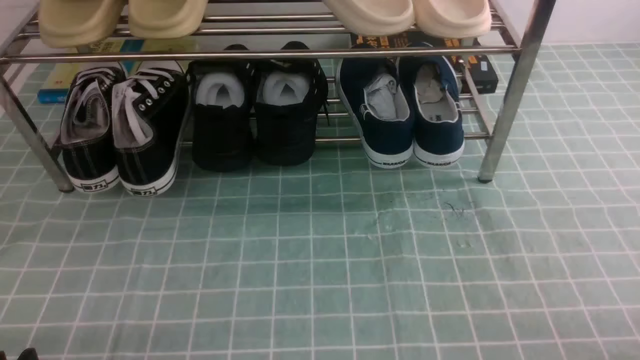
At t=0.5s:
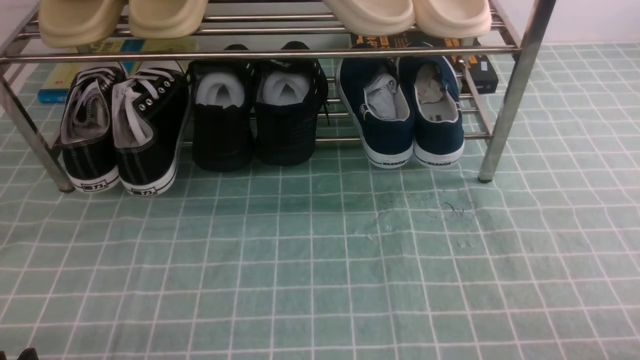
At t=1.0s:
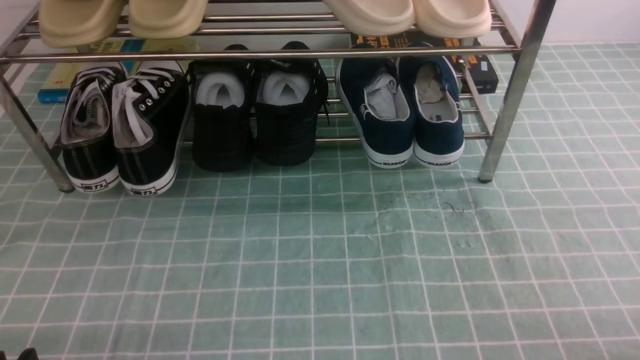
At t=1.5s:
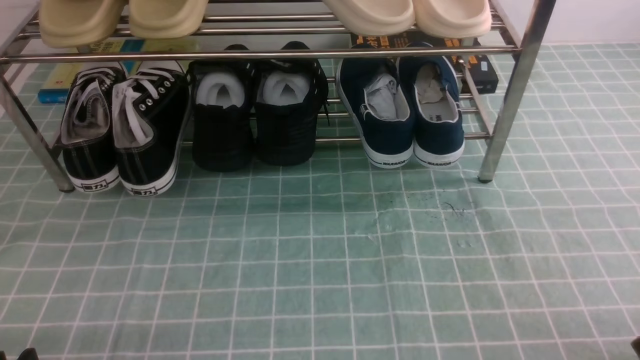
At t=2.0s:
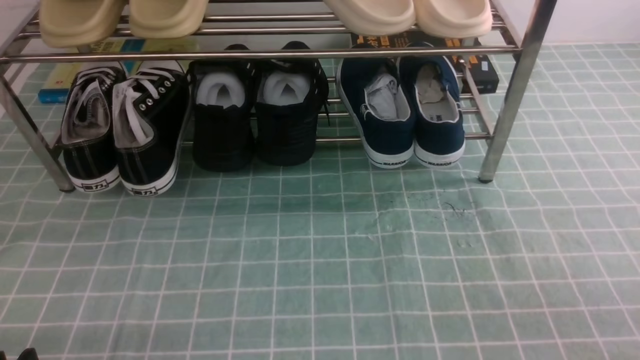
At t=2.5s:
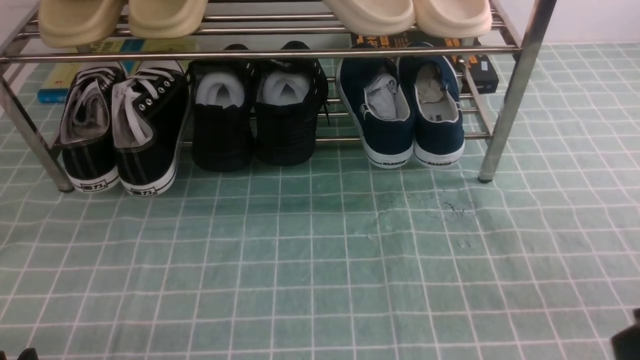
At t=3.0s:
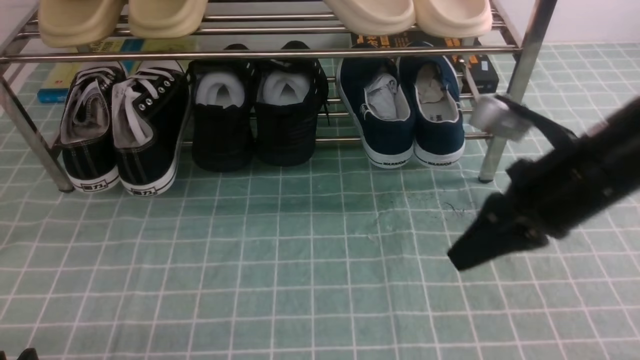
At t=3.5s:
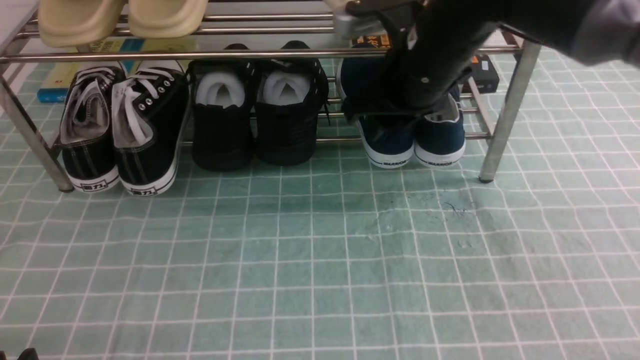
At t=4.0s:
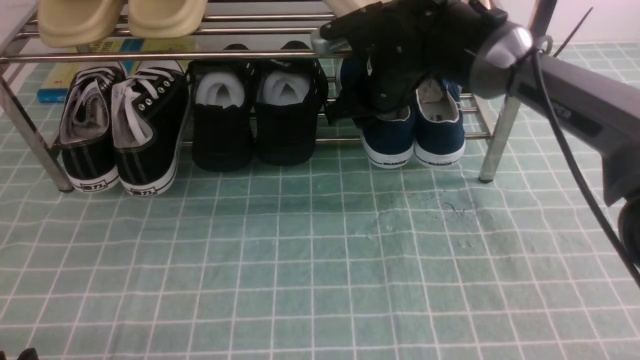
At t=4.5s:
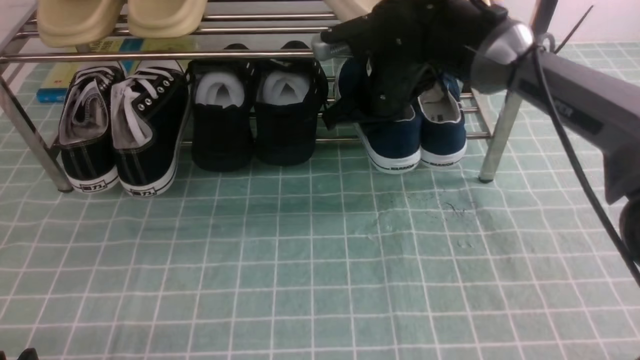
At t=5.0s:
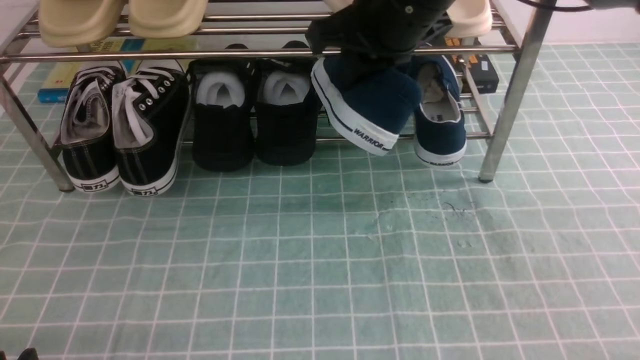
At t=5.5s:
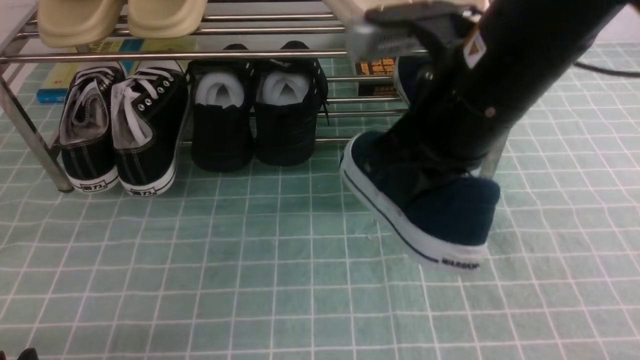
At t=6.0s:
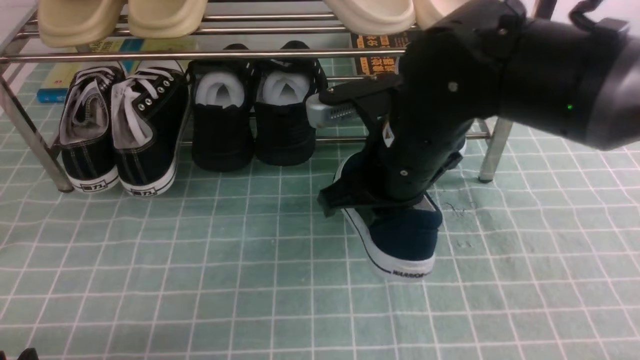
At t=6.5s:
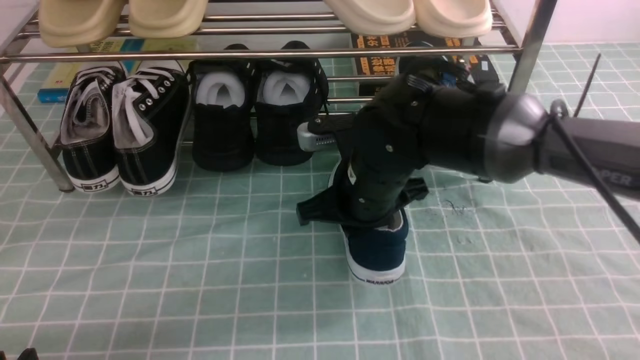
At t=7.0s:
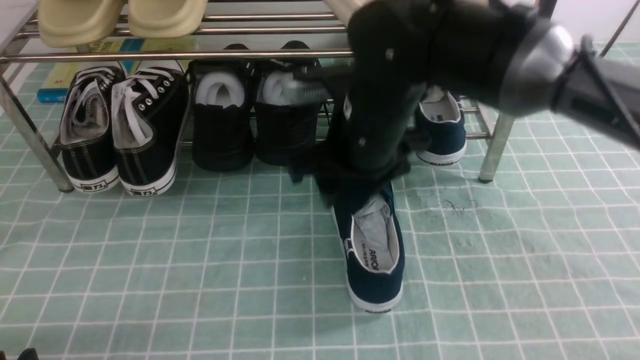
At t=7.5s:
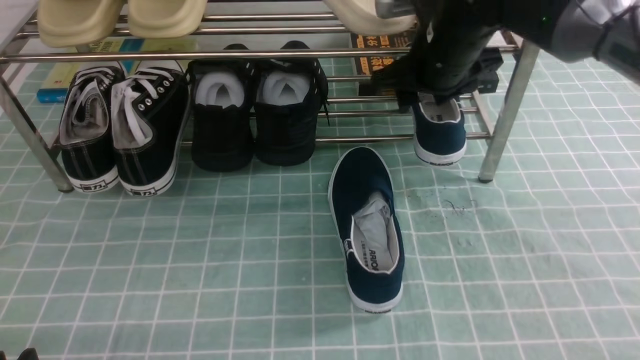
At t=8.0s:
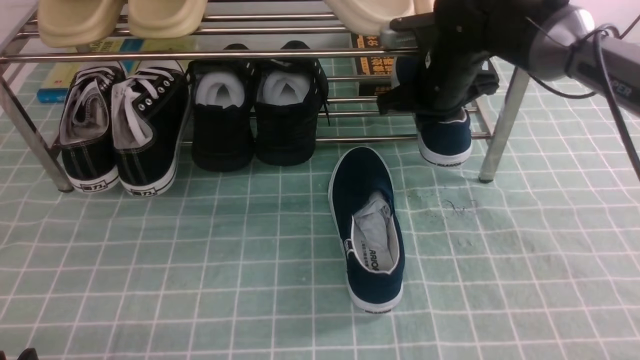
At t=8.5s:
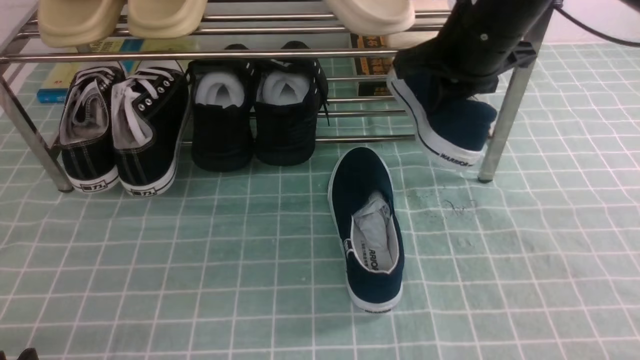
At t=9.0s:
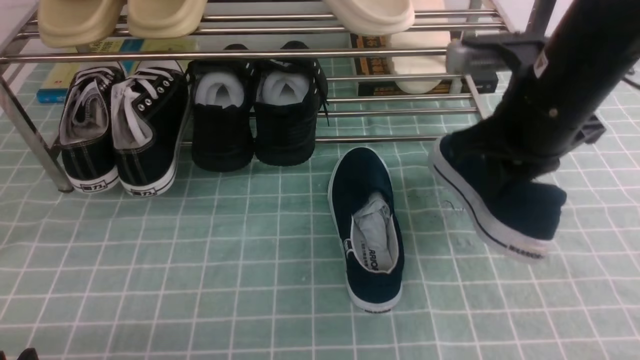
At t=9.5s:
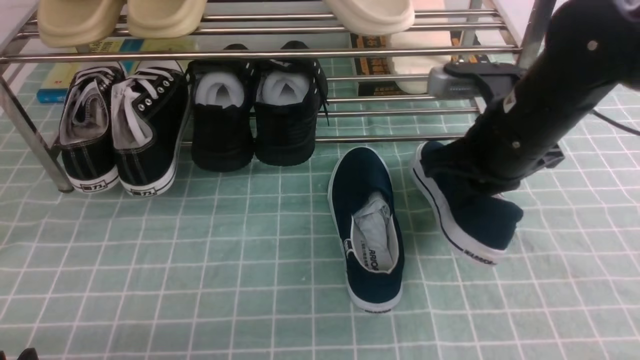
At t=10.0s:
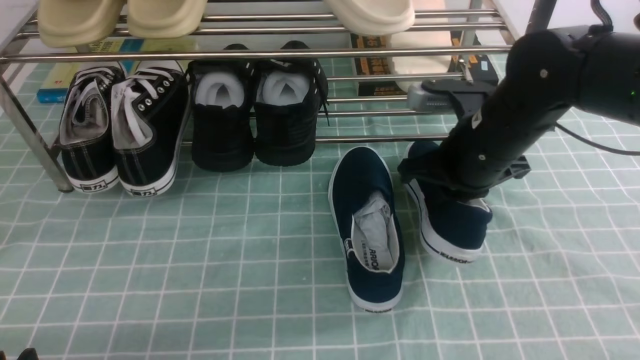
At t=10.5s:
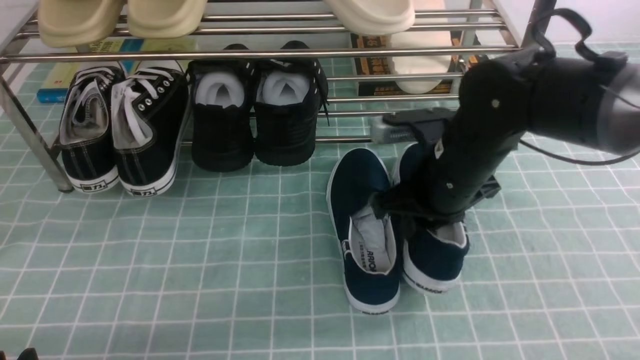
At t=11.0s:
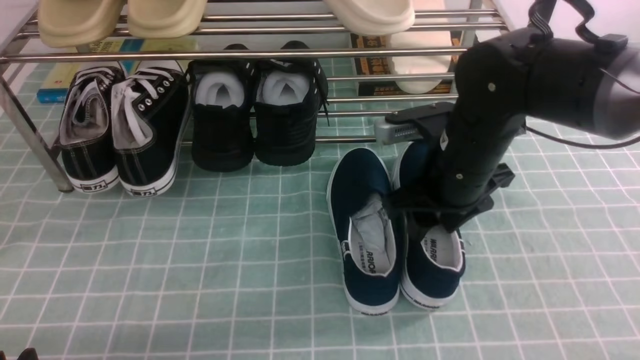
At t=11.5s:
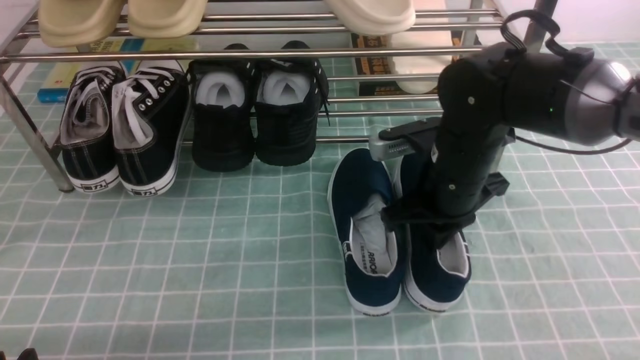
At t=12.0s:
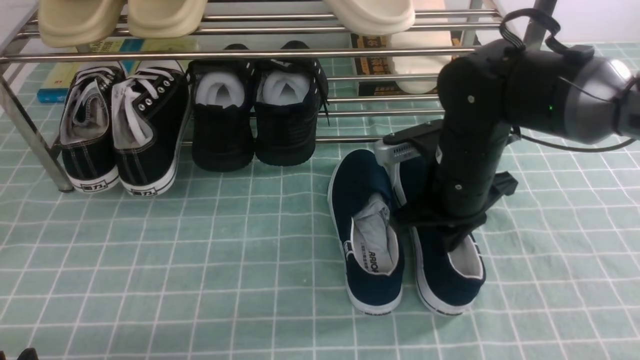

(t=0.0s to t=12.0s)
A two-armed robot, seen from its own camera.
Step, t=0.0s - t=4.0s: use the right arm to clamp a shoe on the right side of the shoe rack.
Step, t=4.5s - t=6.5s: use the right arm to take out the clamped shoe from the shoe rack and put it down.
Step, t=7.0s - t=8.0s: use the right arm to clamp a shoe on the right side of the shoe rack.
Step, t=8.5s - t=11.0s: use the right arm to take out the clamped shoe from the shoe rack and put it down.
t=2.0s - t=4.0s: The right gripper travels forward and to the left by some 40 cm, and opens its fingers.
t=4.0s - t=6.0s: The right gripper shifts some 15 cm backward, and closes up.
t=6.0s - t=8.0s: The right gripper heads forward, covering roughly 15 cm, and opens, then closes again.
t=8.0s - t=10.0s: The right gripper moves backward, roughly 10 cm.
t=10.0s - t=12.0s: The right gripper opens, then closes once more.

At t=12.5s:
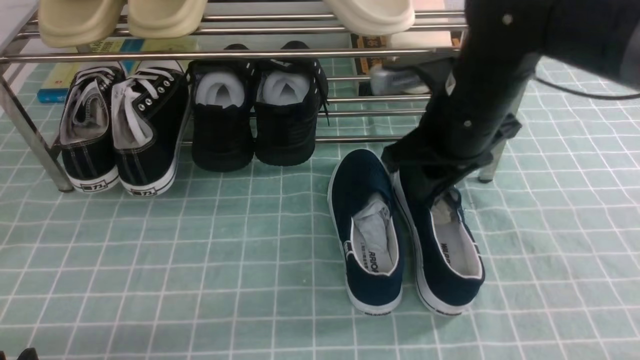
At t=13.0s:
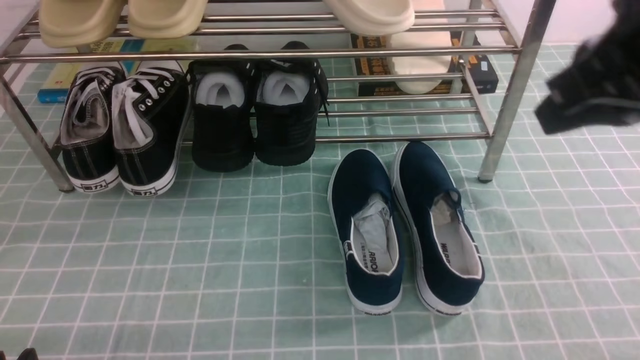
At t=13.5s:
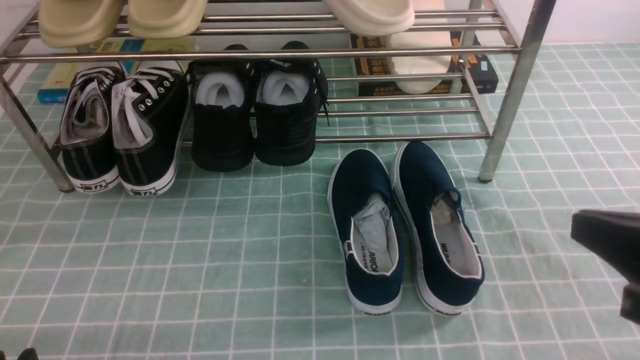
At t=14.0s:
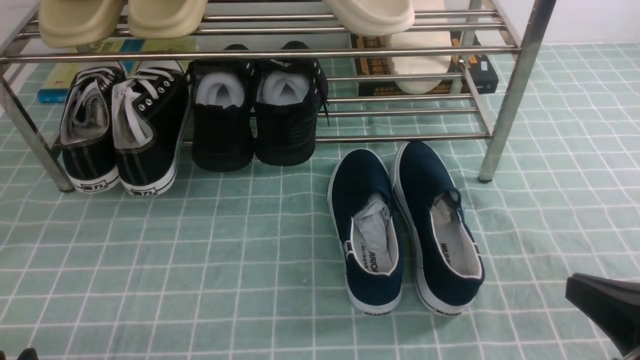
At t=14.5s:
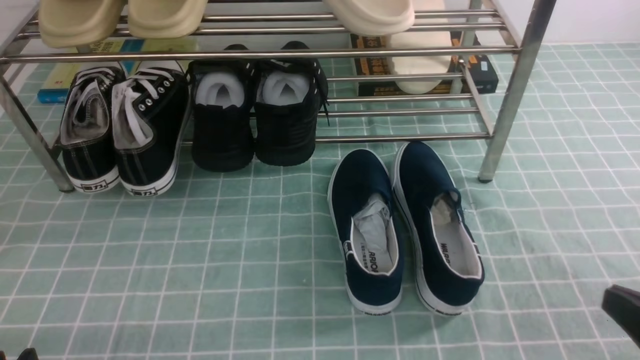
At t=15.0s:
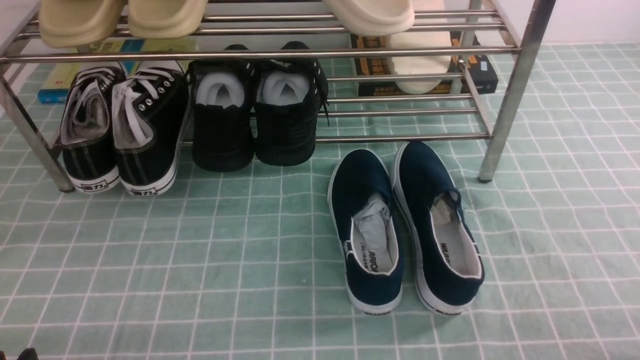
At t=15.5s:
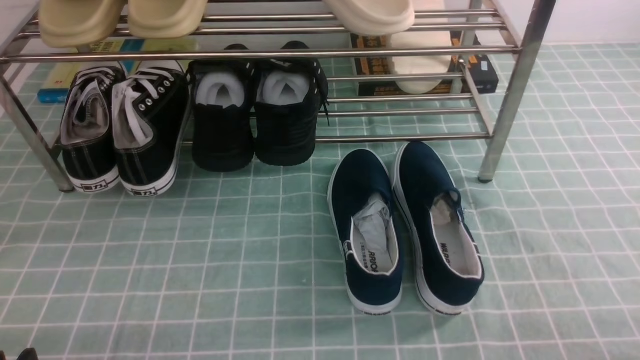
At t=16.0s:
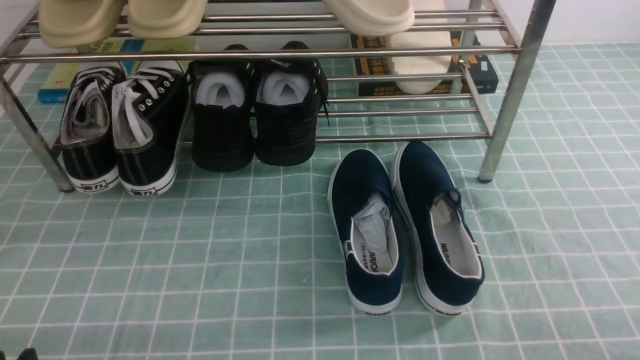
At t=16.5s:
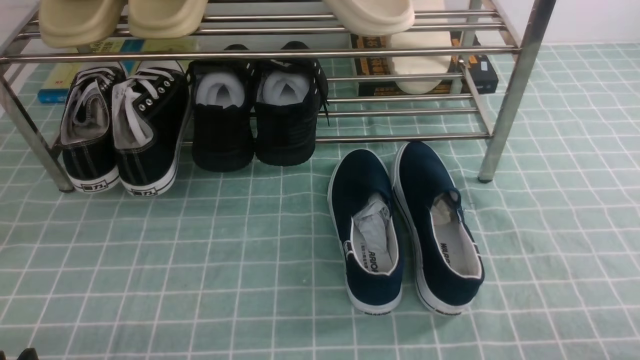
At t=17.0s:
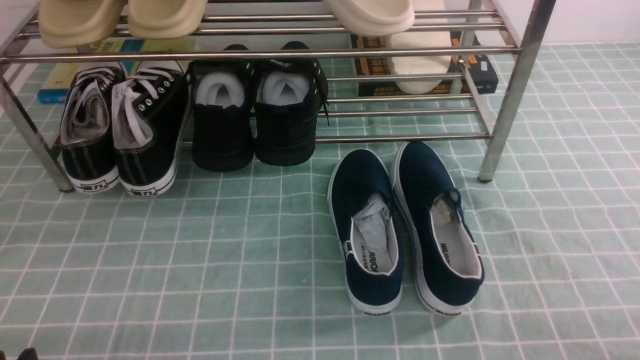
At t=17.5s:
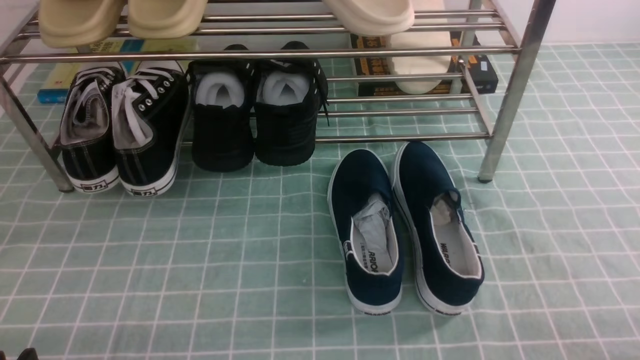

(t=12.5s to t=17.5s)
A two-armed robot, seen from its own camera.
t=12.5s - t=15.0s: The right gripper is displaced backward, to the right and downward by roughly 35 cm, and closes.
